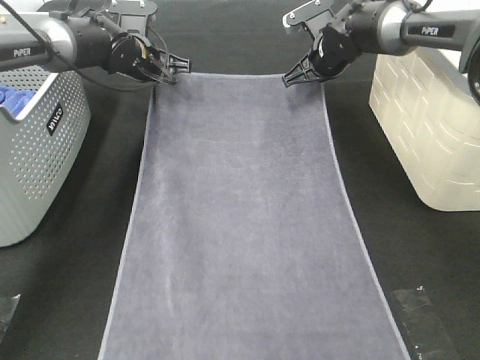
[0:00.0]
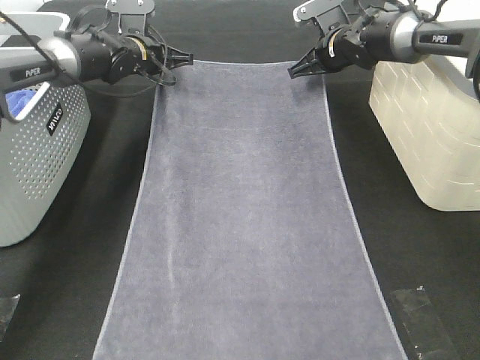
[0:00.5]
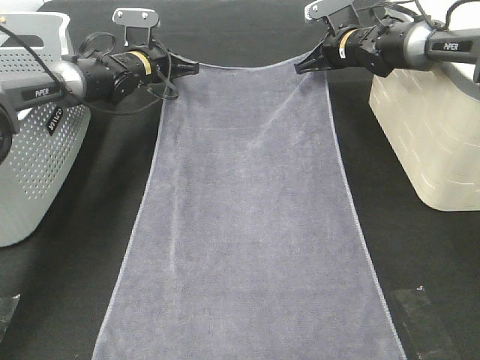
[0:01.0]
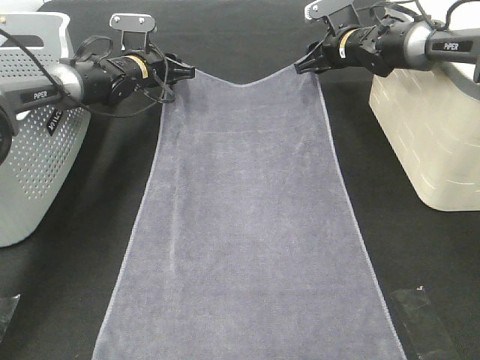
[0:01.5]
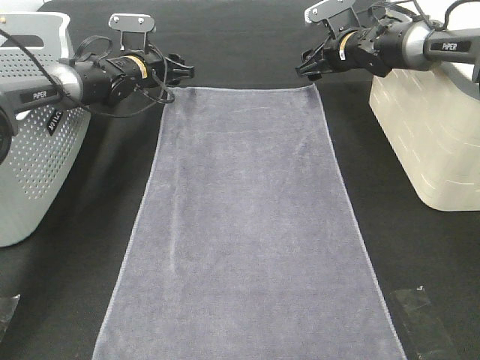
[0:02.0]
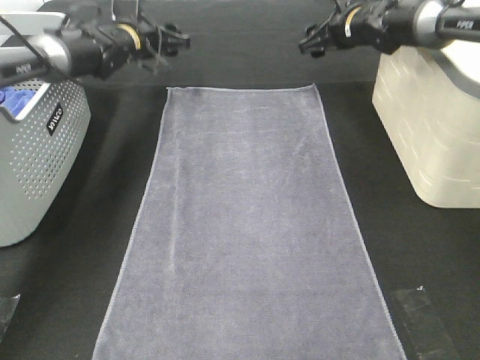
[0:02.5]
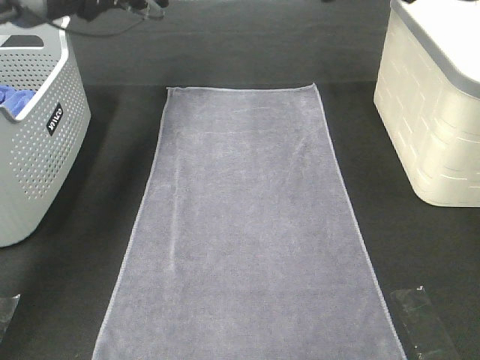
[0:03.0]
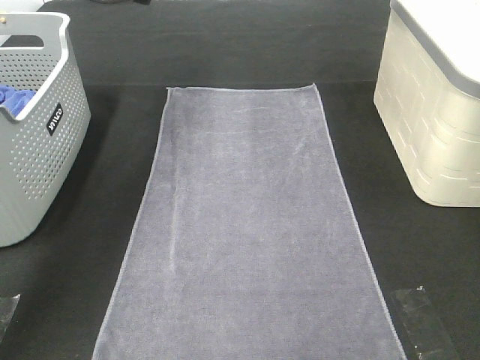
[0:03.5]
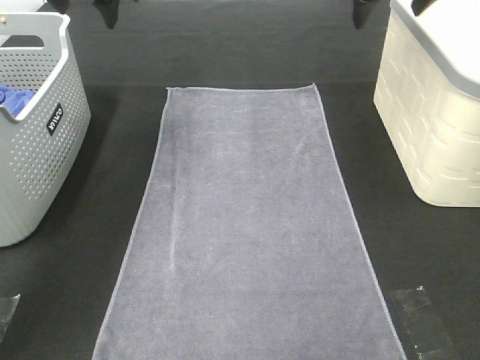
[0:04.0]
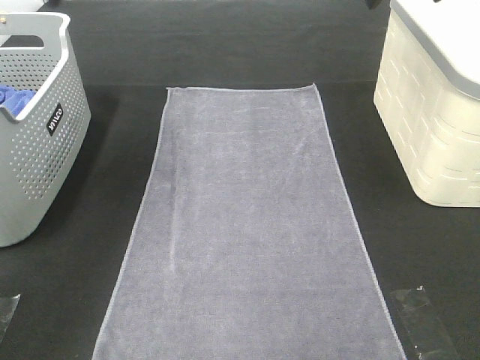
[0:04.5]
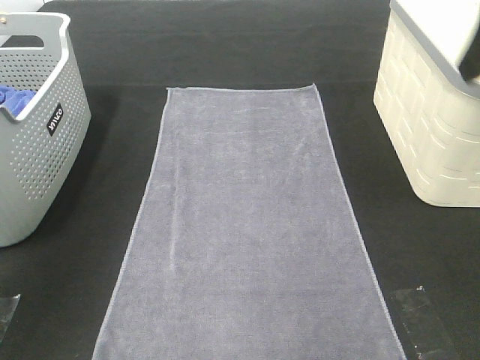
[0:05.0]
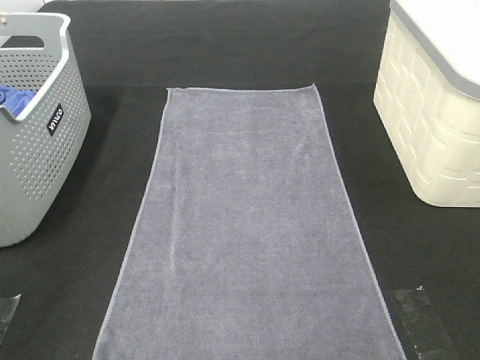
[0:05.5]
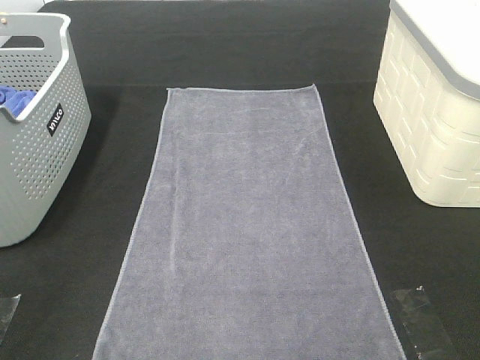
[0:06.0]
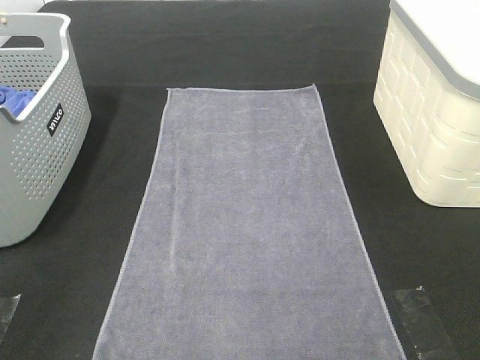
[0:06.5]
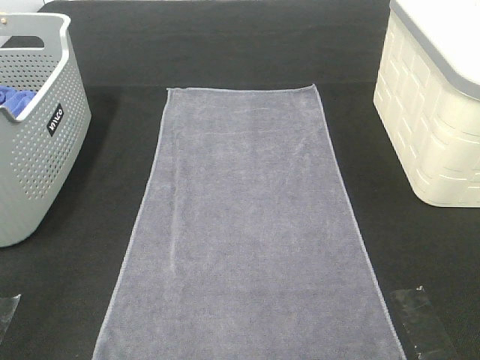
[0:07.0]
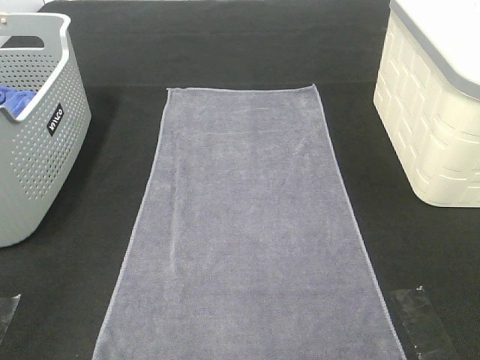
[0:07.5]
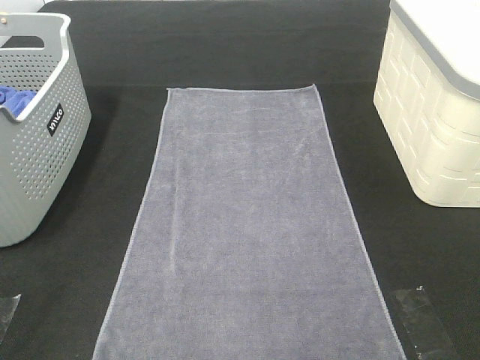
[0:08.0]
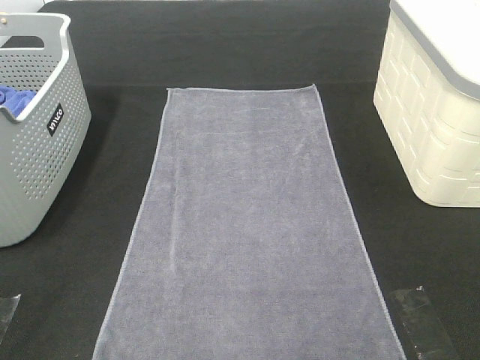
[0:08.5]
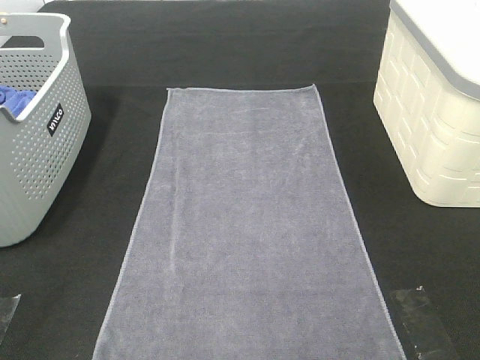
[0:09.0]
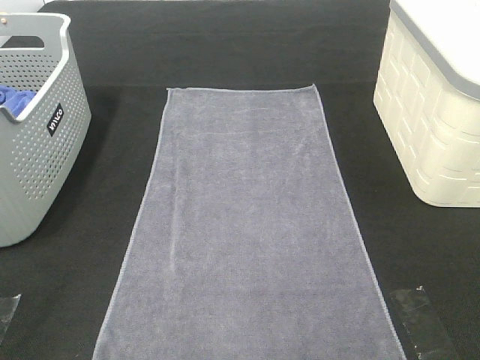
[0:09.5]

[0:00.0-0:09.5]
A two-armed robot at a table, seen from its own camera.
Task of the whole recording: Remove the towel and place it.
0:00.0 to 0:02.0: The left gripper shifts by some 5 cm, and opens its fingers. Meanwhile the right gripper opens.
0:02.0 to 0:04.0: The grippers both shift upward and backward by roughly 25 cm.
0:04.0 to 0:05.5: Both grippers move backward, approximately 40 cm.

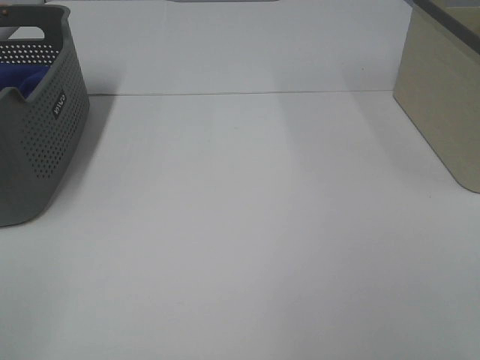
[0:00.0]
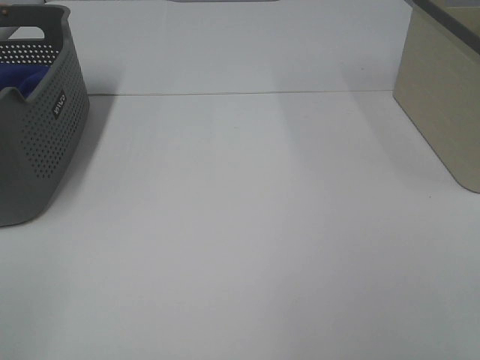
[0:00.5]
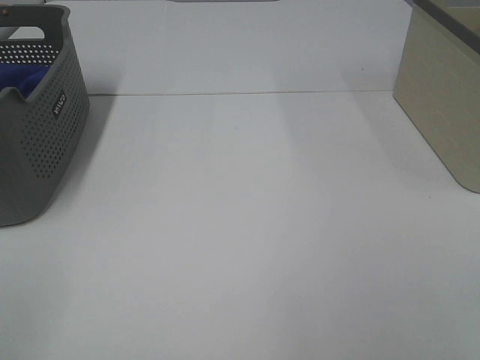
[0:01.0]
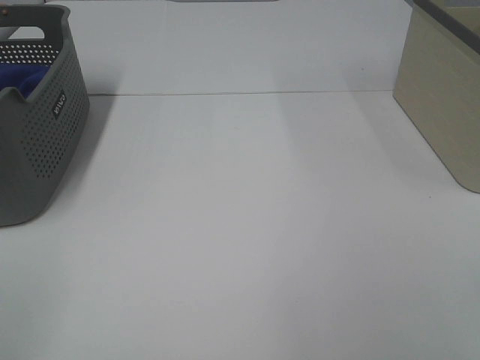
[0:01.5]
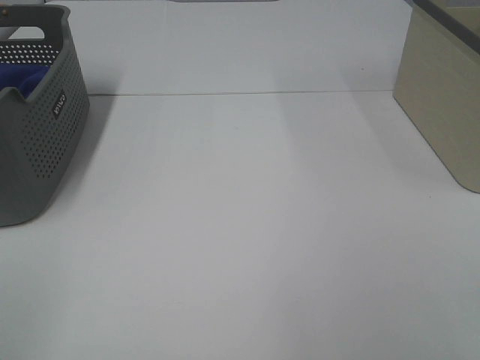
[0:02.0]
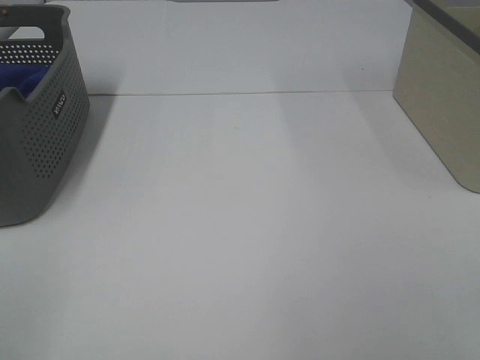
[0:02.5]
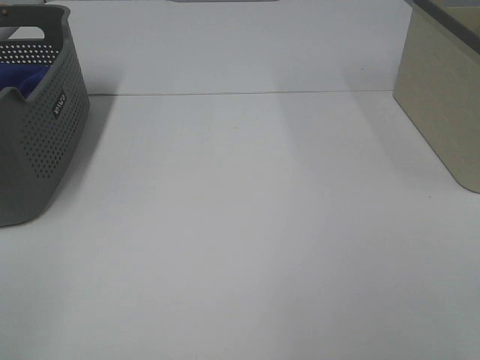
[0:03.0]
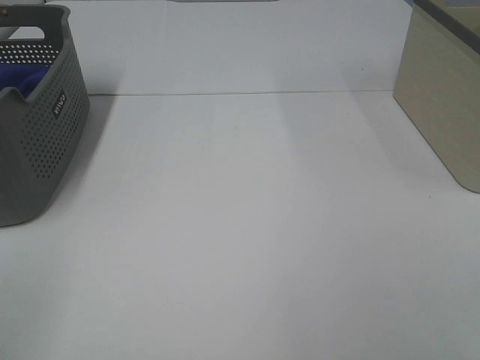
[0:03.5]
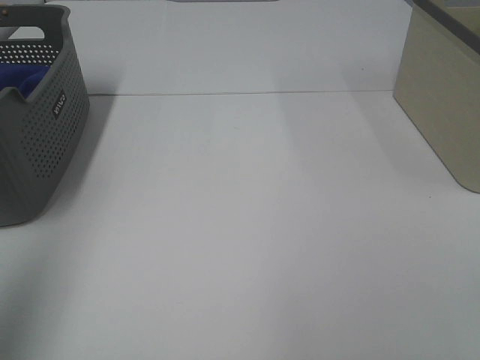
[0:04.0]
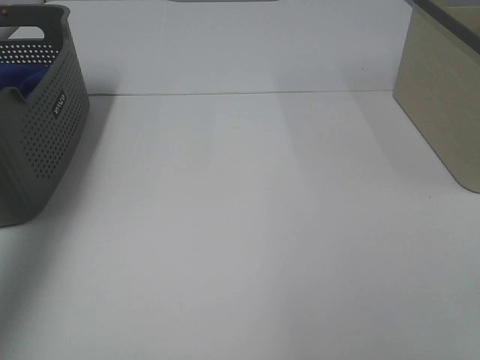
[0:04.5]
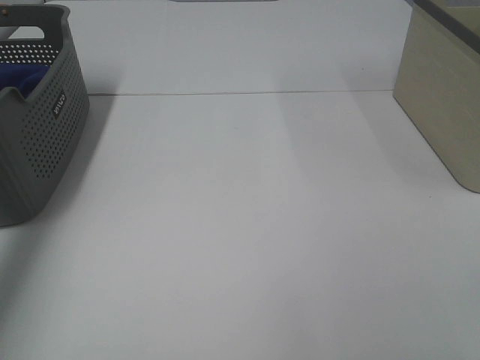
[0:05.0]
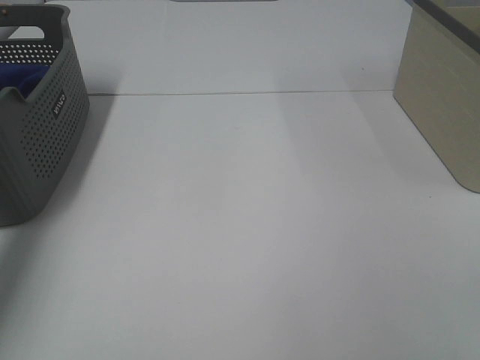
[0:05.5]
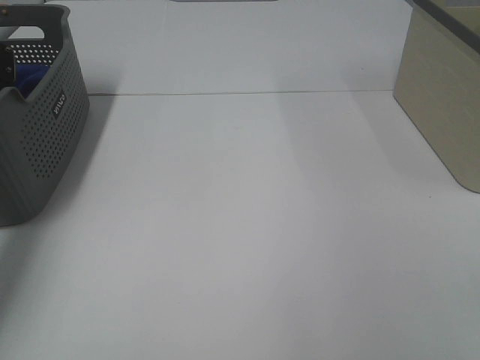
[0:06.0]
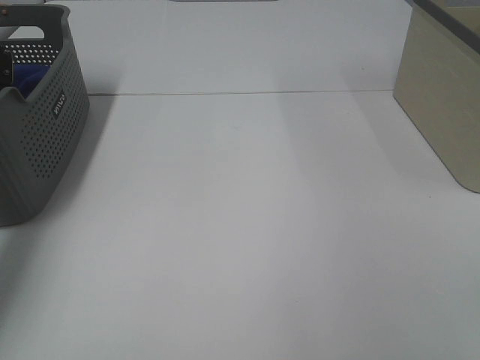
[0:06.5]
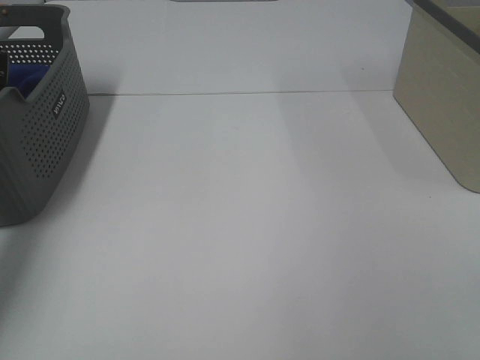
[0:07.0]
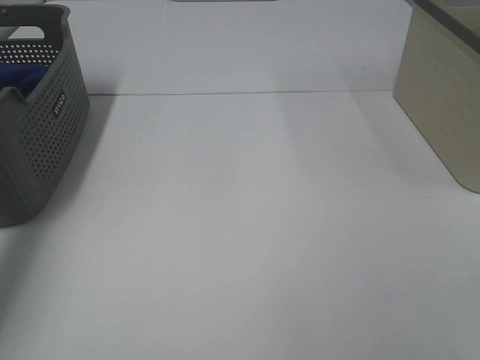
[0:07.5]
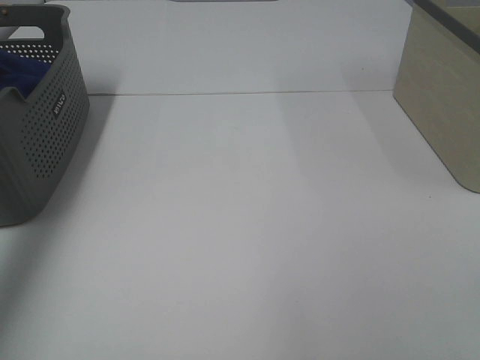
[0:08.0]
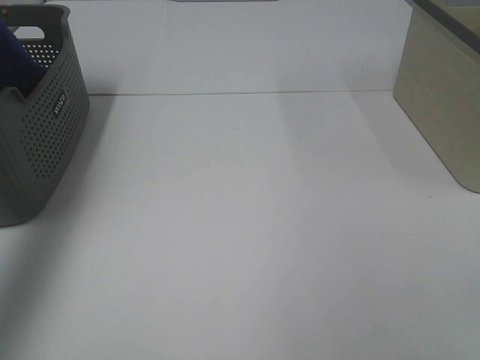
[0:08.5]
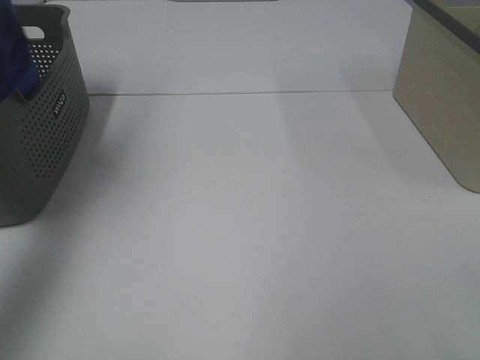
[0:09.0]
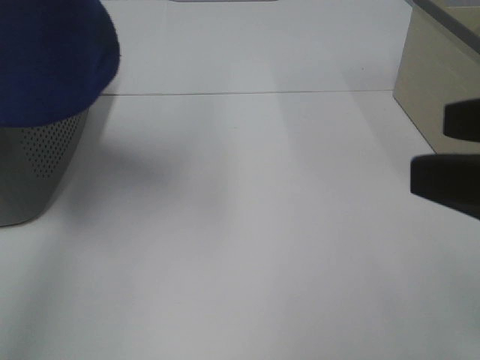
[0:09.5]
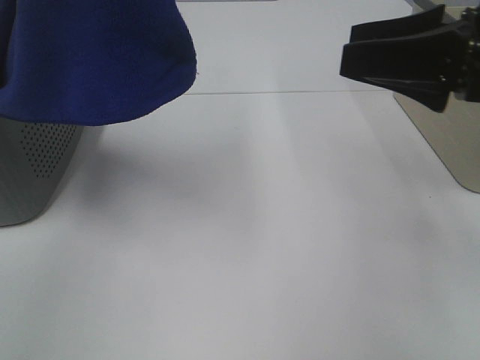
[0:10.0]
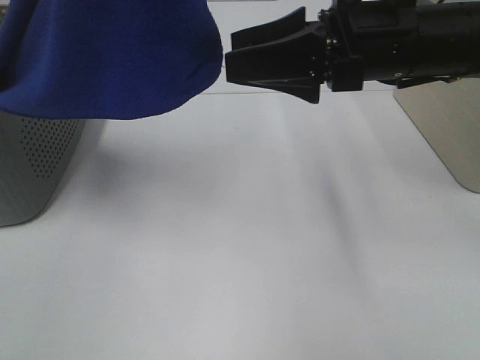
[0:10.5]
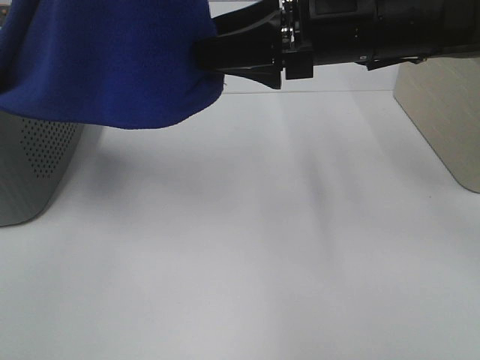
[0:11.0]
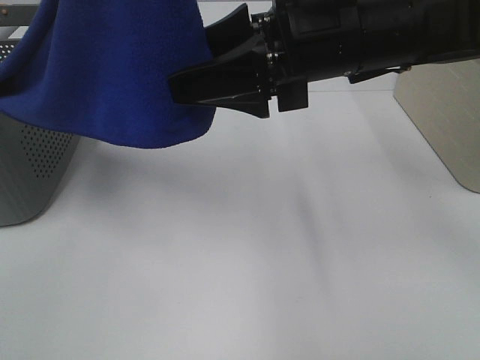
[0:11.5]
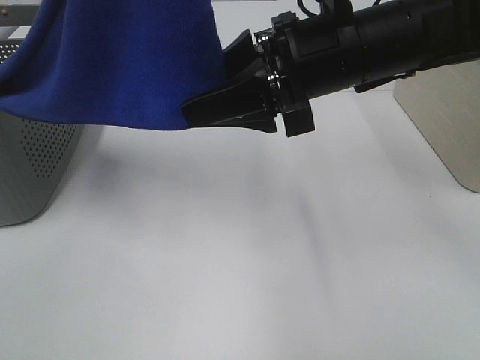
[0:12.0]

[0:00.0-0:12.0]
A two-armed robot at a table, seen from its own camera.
Task of the whole recording: Remove the towel and place it.
Step, 0:08.5 to 0:11.5: Right hand: grab a corner of the blue towel and straighten it.
0:00.0 to 0:02.0: Both grippers stay put.
0:02.0 to 0:04.0: The left gripper travels forward and upward by about 20 cm.
0:04.0 to 0:06.0: The left gripper moves forward and downward, about 40 cm.
0:08.0 to 0:10.0: The left gripper shifts about 25 cm to the right, upward and backward. The right gripper travels forward by approximately 25 cm.
0:10.0 to 0:12.0: The right gripper travels to the left by about 15 cm.

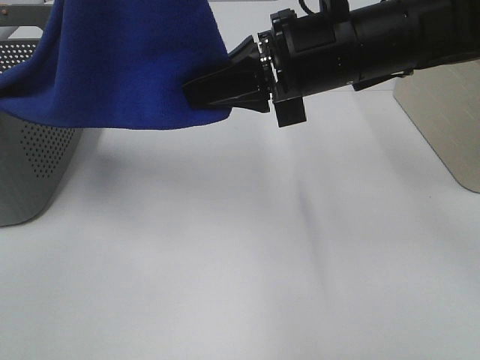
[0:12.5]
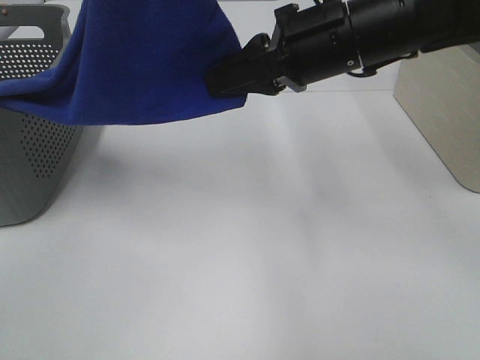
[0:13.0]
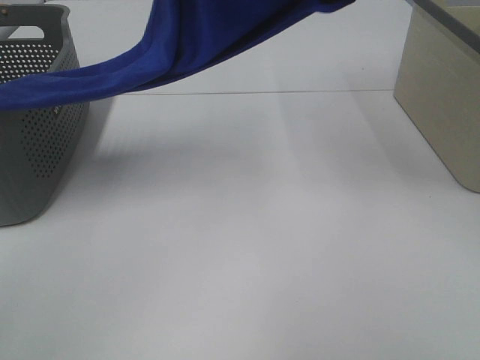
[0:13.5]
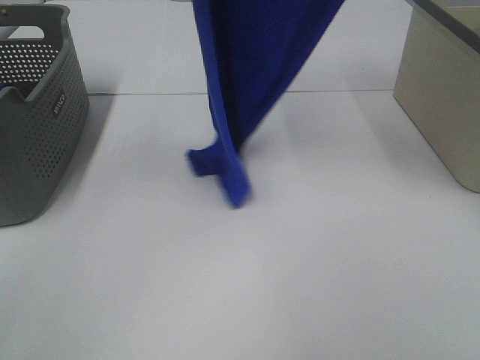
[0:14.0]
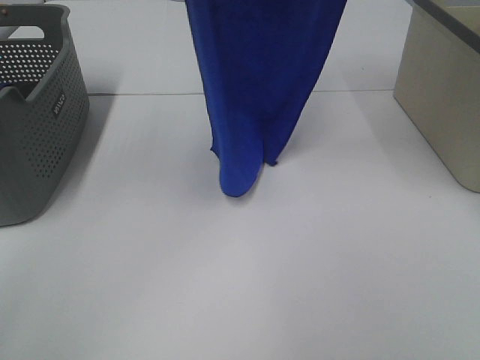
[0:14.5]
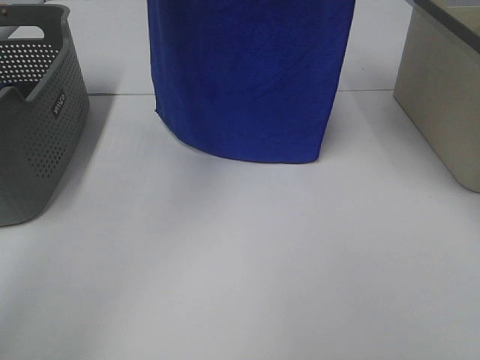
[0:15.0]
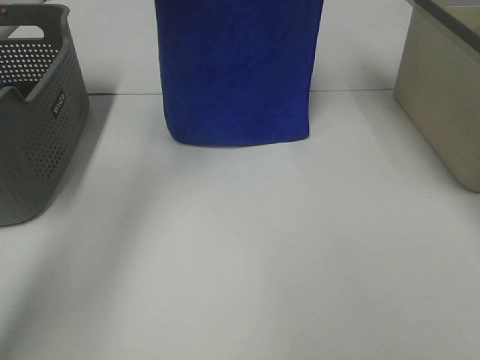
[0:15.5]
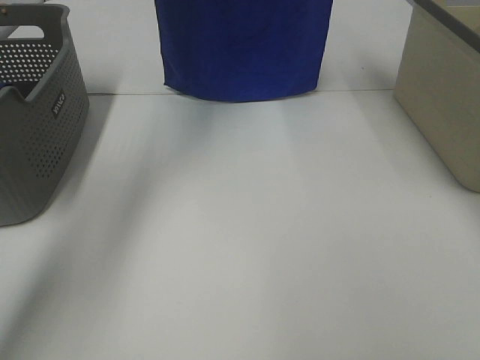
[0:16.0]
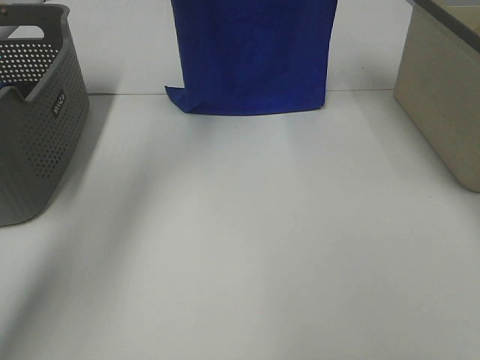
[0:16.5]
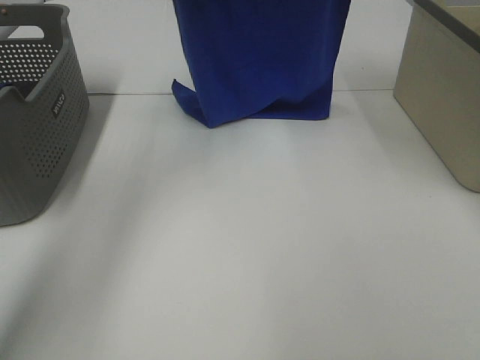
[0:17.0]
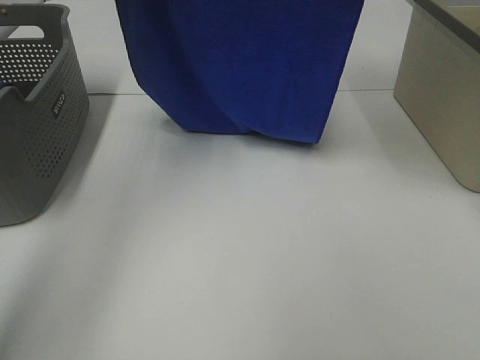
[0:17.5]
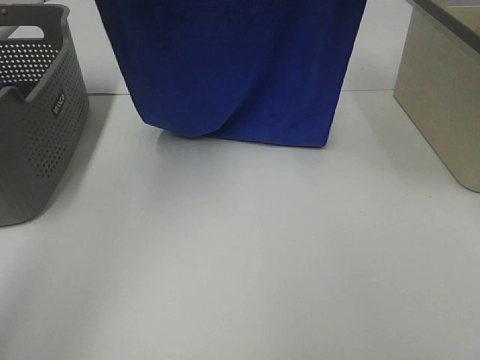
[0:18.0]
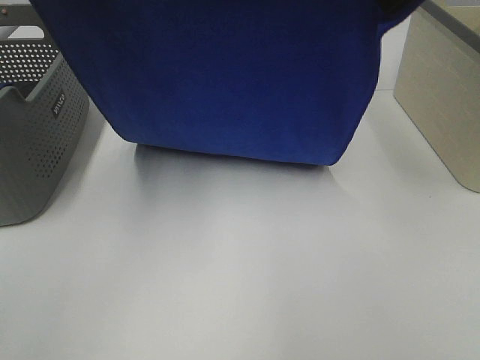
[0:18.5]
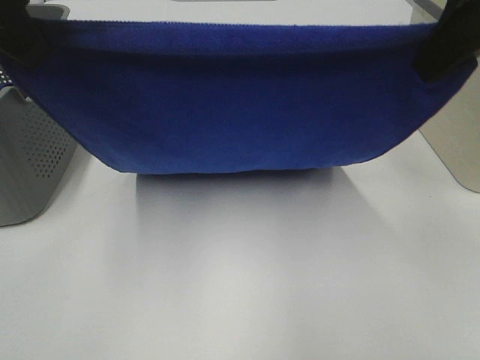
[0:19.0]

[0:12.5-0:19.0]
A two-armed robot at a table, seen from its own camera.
Task of the whole recording: Remove the towel and place it.
0:12.5 to 0:14.5: The right gripper goes some 25 cm upward; the left gripper travels forward by roughly 10 cm.
0:14.5 to 0:17.0: The left gripper goes approximately 15 cm forward and downward; the right gripper shifts approximately 10 cm downward and forward.
0:17.0 to 0:19.0: The two grippers go approximately 20 cm backward.
